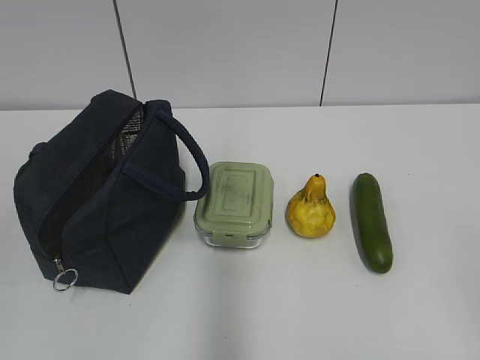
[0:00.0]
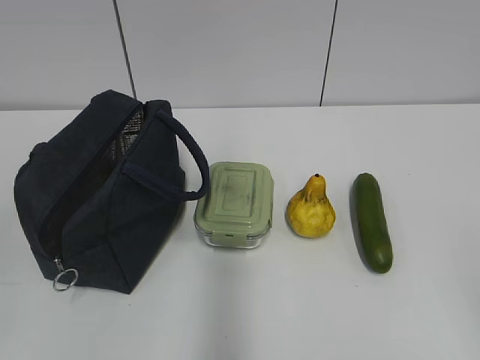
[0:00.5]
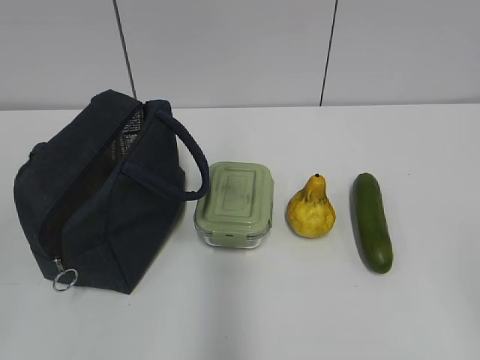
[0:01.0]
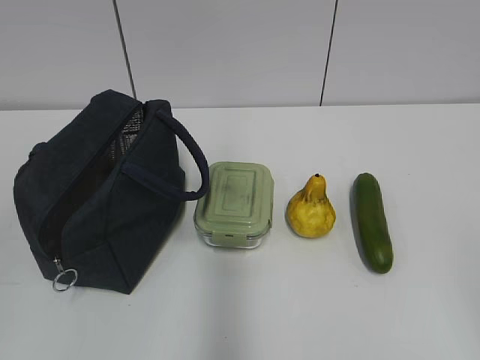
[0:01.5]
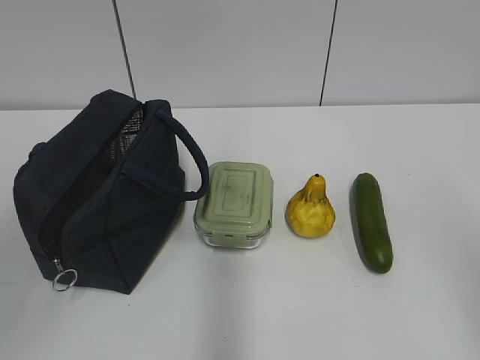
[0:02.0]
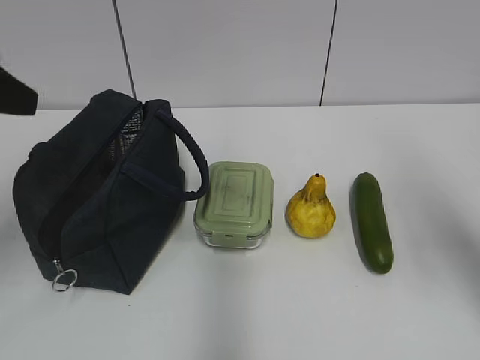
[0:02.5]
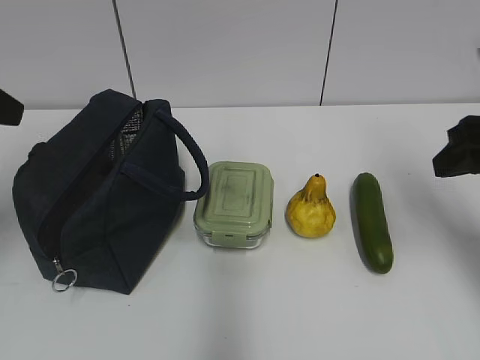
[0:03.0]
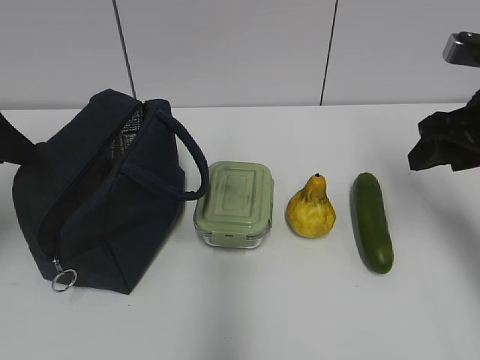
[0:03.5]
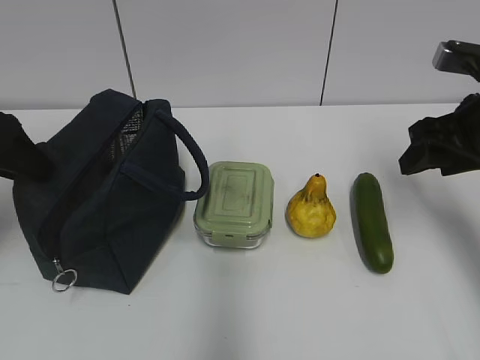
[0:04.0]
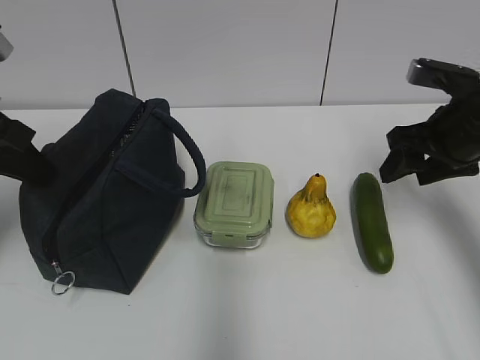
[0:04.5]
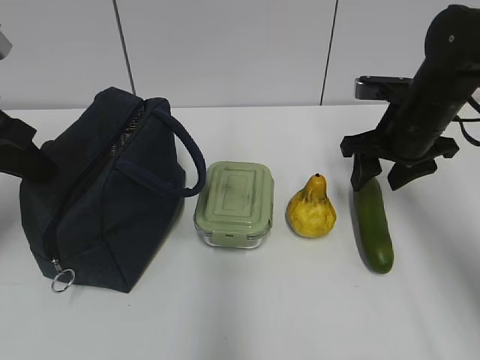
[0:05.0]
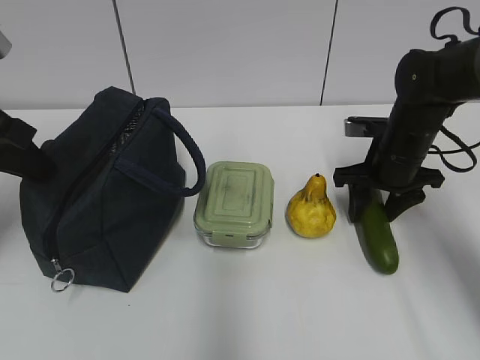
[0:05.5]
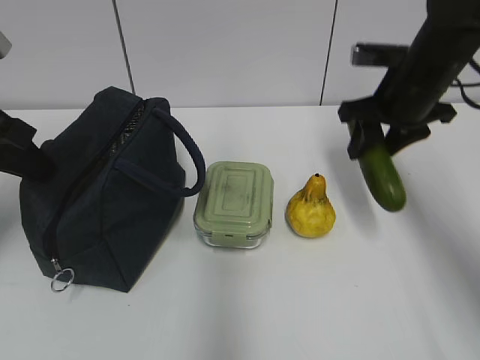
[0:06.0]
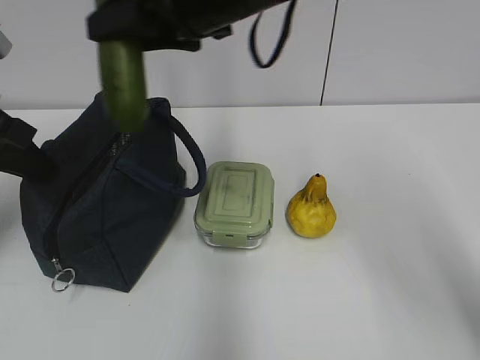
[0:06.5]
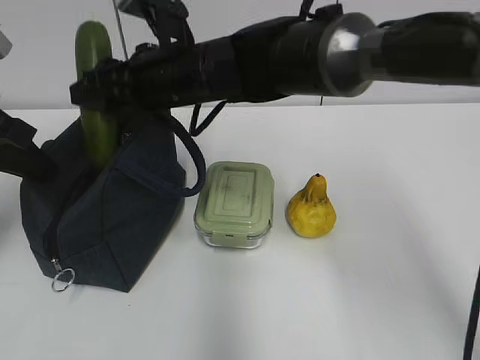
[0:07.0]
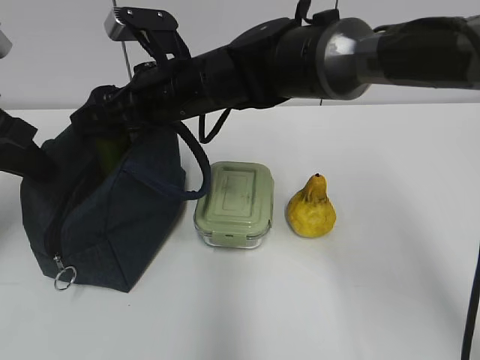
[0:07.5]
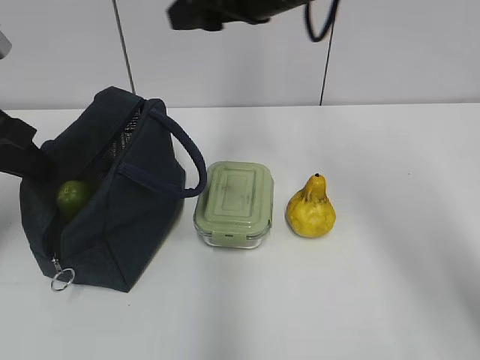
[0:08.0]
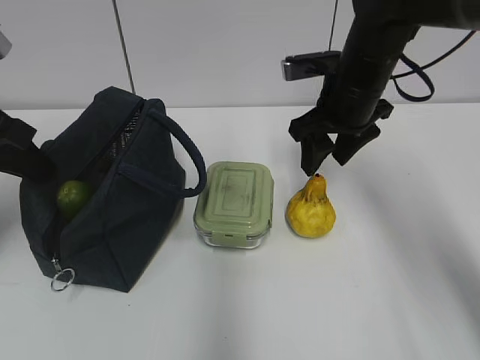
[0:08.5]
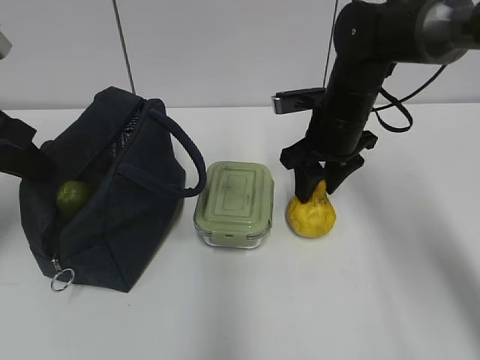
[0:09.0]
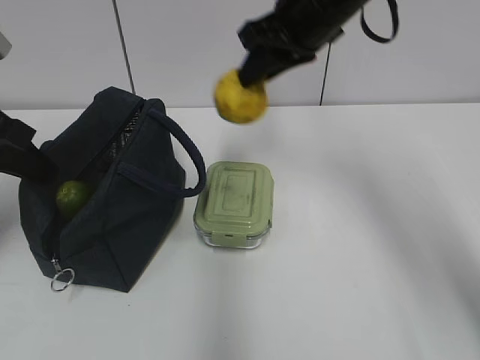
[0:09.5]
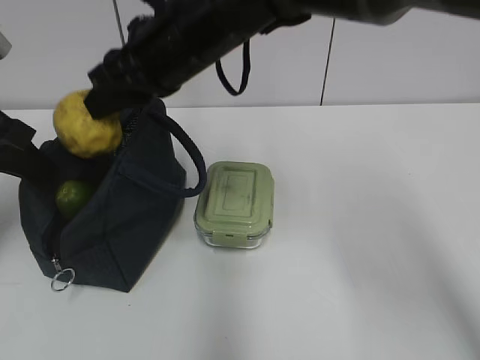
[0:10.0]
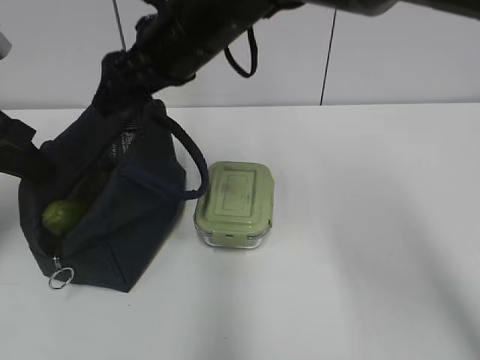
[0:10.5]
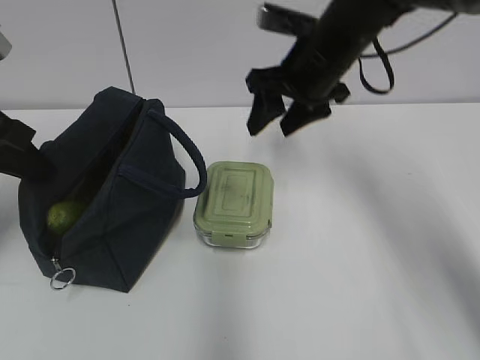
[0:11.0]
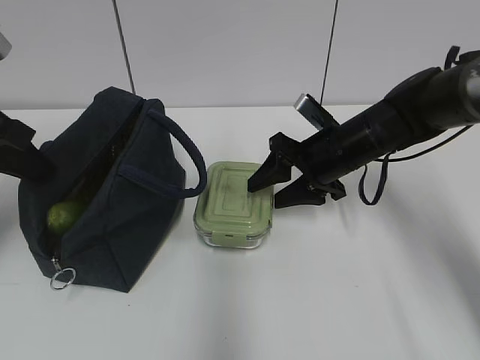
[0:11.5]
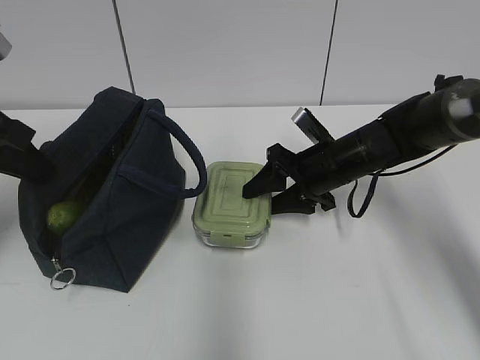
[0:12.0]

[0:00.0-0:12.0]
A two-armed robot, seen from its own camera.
Step, 0:00.0 to 0:05.5: Grab the cucumber with your right hand.
Step, 0:07.0 to 0:07.5: Place it into the bag with your right hand.
Step, 0:08.0 to 0:09.0: Grab the pear with your right hand.
Step, 0:09.5 to 0:10.0: Place it into the bag with your right hand.
0:02.0 to 0:04.0: Both grippers travel together forward, some 20 cm.
0:04.0 to 0:06.0: The right gripper shifts roughly 10 cm forward and to the left, and travels downward and back again, approximately 10 cm each way; the left gripper closes up.
0:06.0 to 0:08.0: The right gripper heads to the left and upward, covering approximately 15 cm.
0:08.0 to 0:10.0: The right gripper heads to the left, covering about 10 cm, and closes up.
0:10.0 to 0:12.0: The right gripper moves to the right and downward, about 25 cm, and opens its fingers.

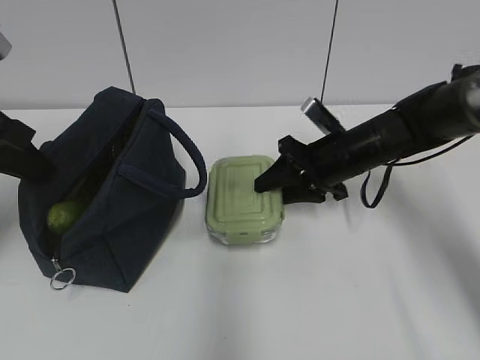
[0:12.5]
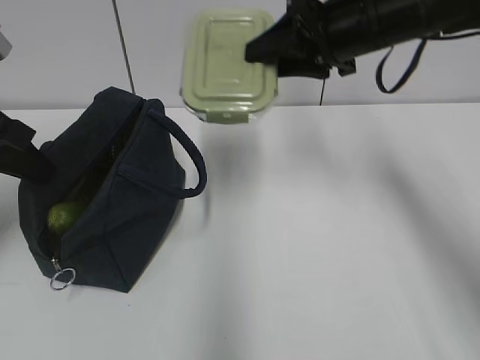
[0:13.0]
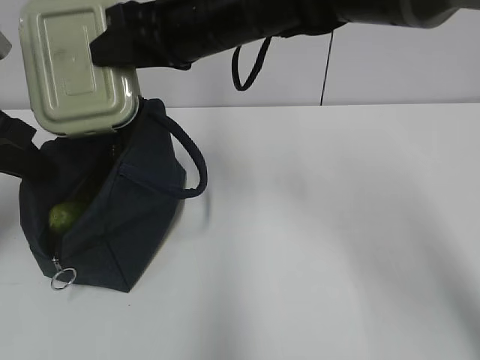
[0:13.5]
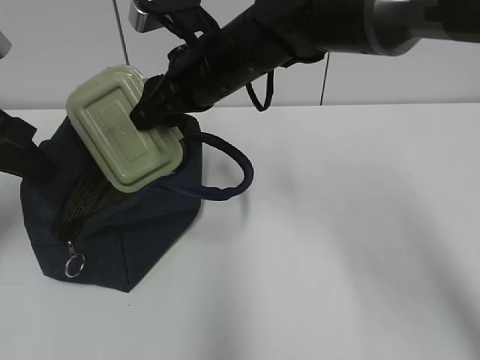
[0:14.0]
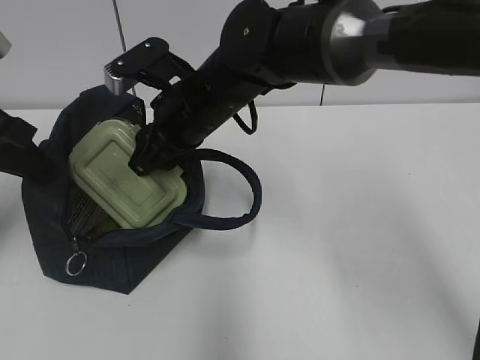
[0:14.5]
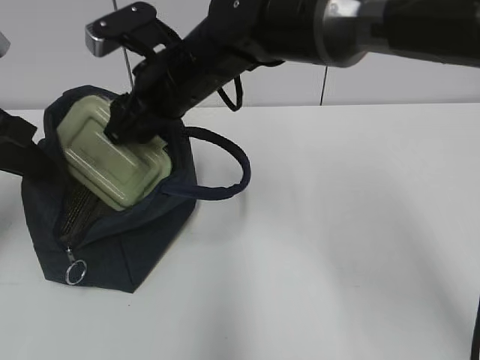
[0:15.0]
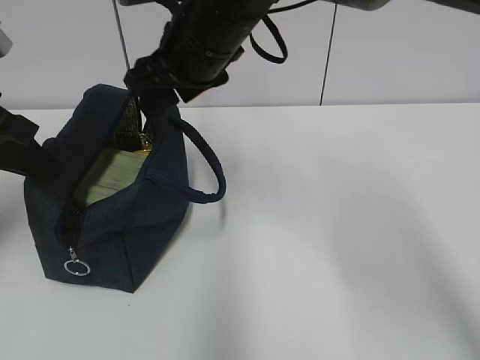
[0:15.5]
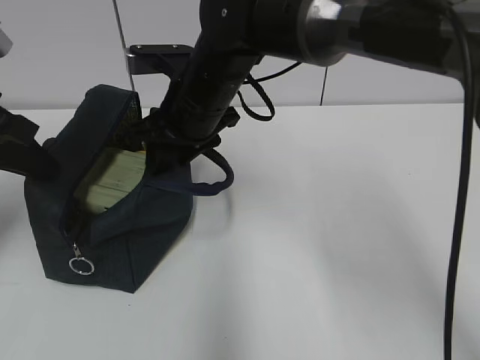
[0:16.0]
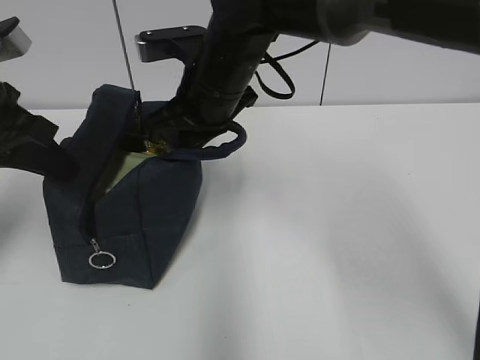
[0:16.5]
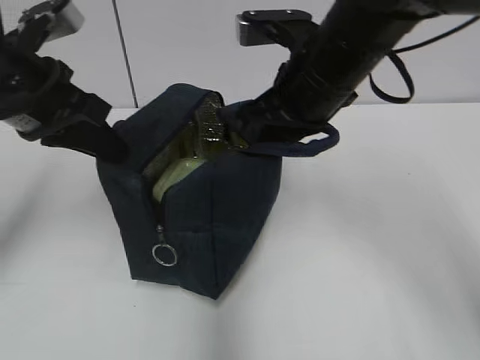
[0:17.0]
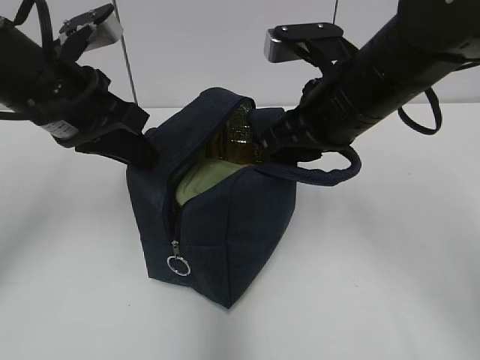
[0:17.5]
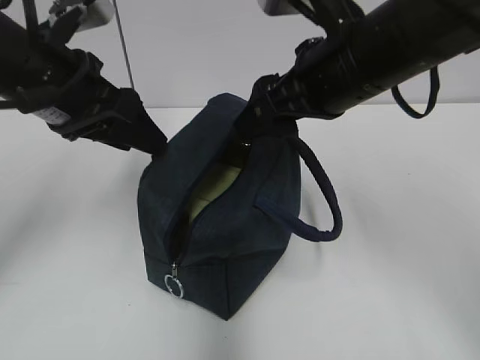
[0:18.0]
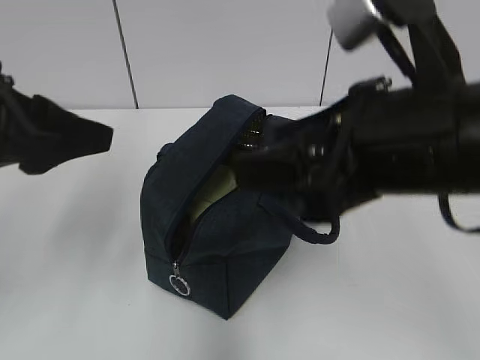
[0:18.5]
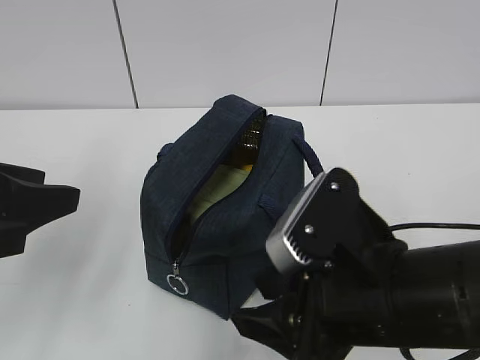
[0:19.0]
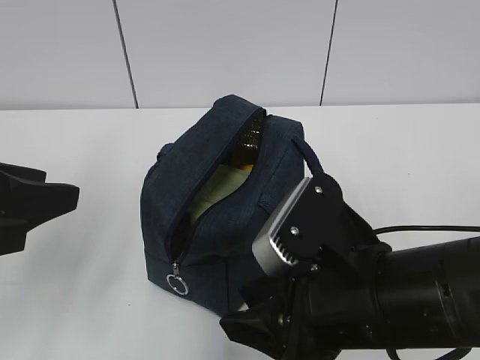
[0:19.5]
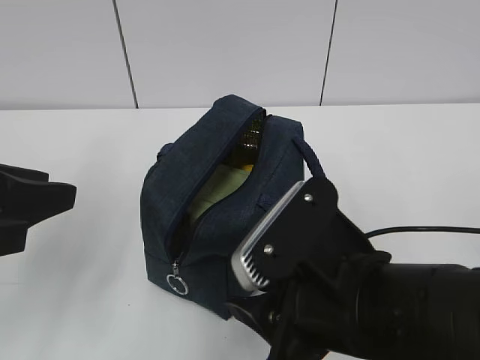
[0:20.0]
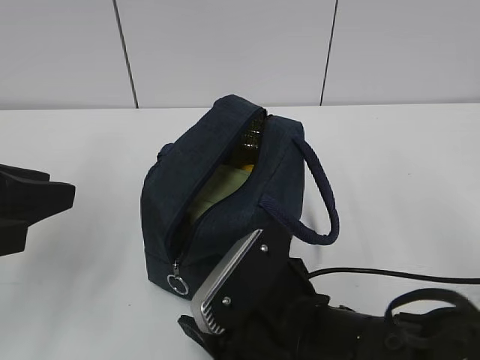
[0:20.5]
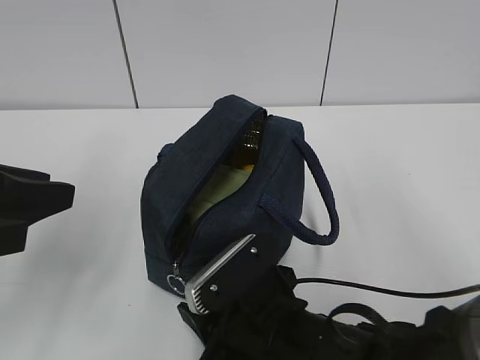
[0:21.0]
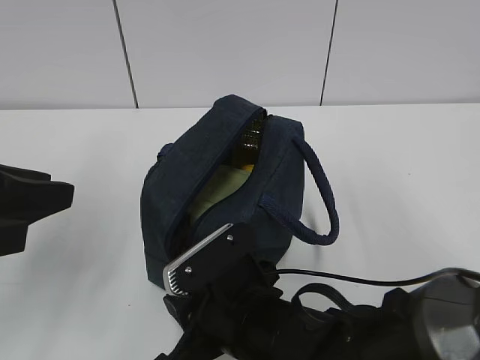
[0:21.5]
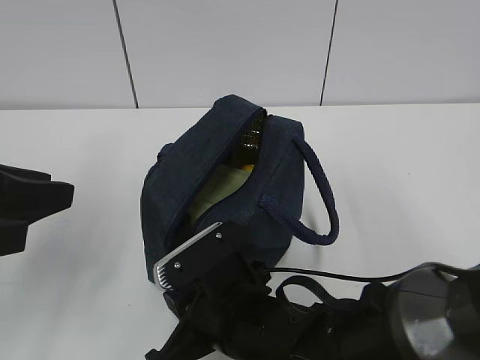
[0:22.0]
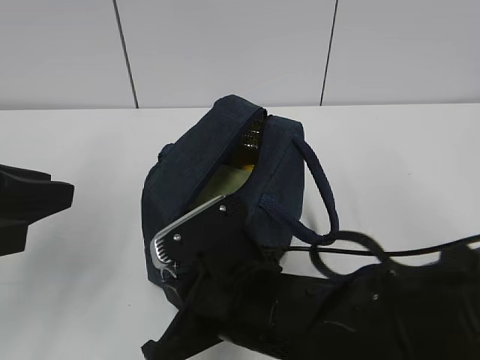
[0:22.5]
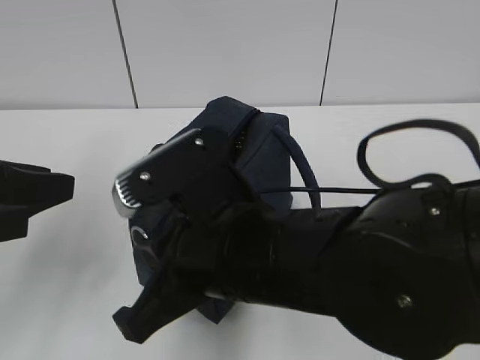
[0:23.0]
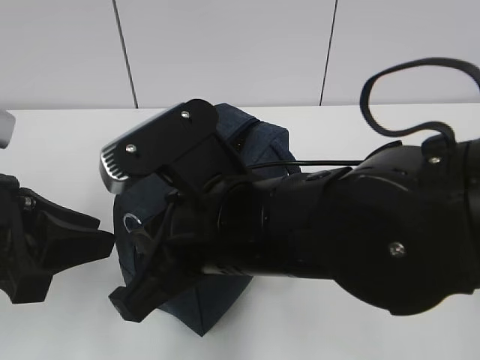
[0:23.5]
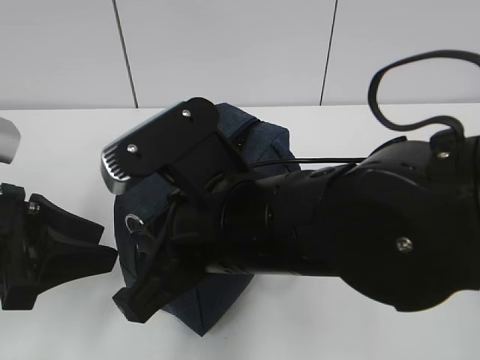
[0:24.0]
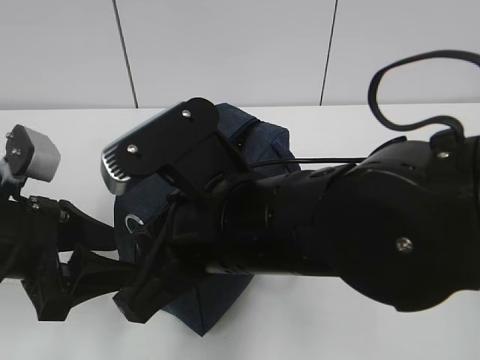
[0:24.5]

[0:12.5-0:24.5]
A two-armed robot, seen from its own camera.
Step, 0:15.5 to 0:16.0: Grab the lunch bag with your right hand.
Step, 0:16.5 to 0:17.5: Move the lunch bag to the right.
0:12.5 to 0:14.5: The right gripper is displaced to the left and upward by roughly 20 cm.
0:14.5 to 0:16.5: The right gripper closes.
0:16.5 to 0:18.5: The right gripper travels backward and to the right by approximately 25 cm, and opens its fingers. Meanwhile the left gripper shifts some 10 cm backward, and opens its fingers.
0:18.5 to 0:20.5: The right gripper is displaced downward and to the left by about 15 cm, and closes its fingers.
0:20.5 to 0:22.5: The right gripper closes its fingers.
0:22.5 to 0:24.5: The left gripper travels downward by roughly 10 cm, and opens. Meanwhile the right gripper moves upward, about 10 cm.

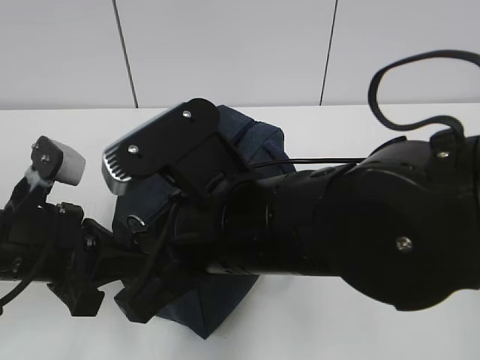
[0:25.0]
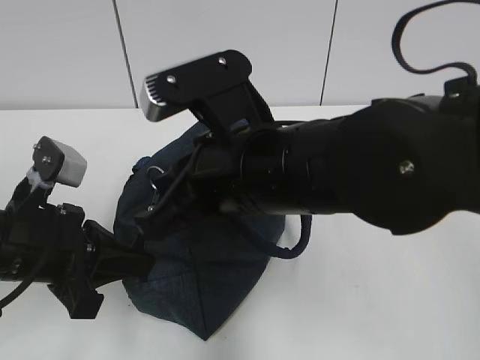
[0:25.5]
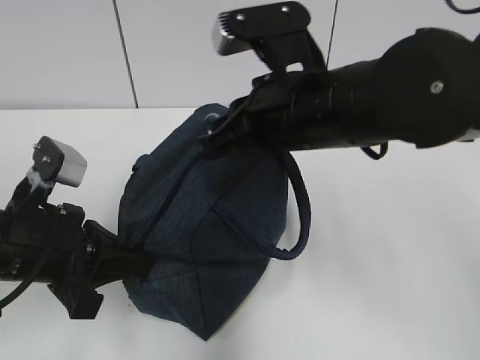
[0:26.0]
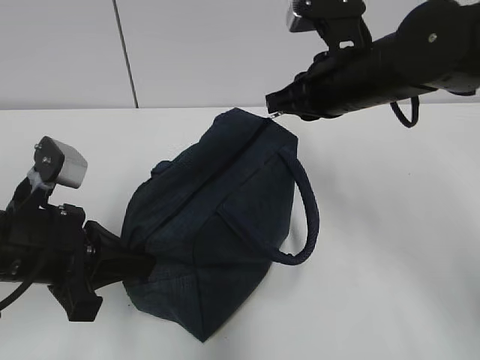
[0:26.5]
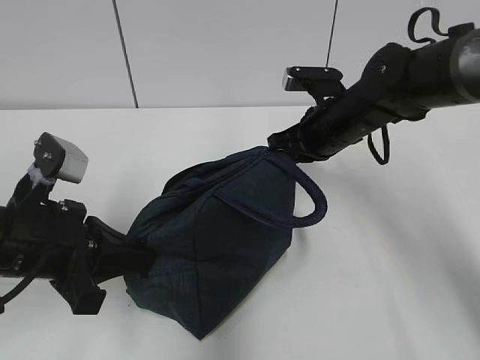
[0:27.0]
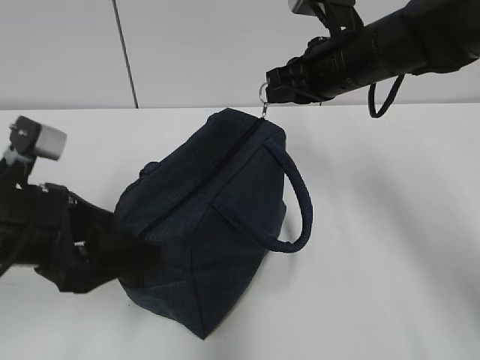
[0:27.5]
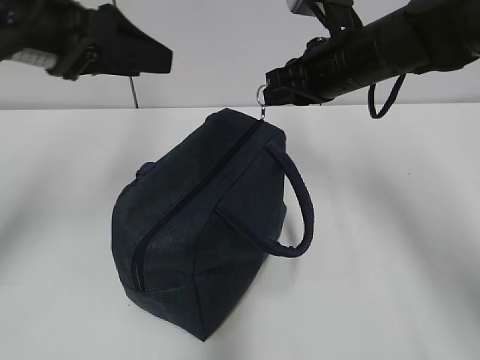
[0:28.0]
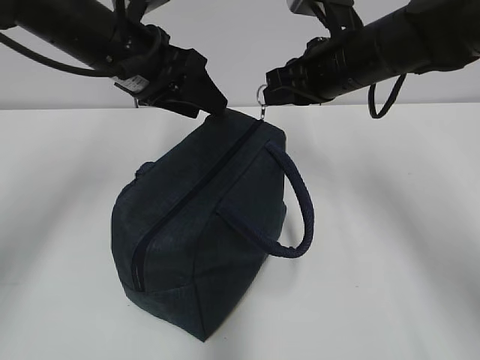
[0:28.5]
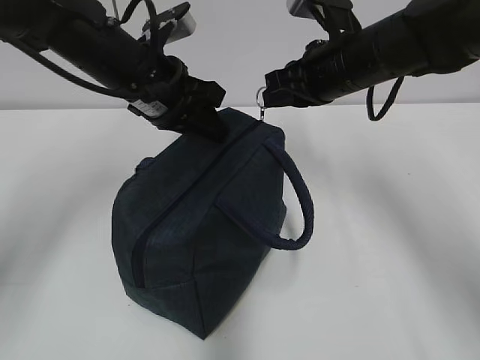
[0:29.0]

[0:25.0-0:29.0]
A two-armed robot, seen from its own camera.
0:25.0 to 0:27.0: The right gripper shifts some 25 cm forward and to the right.
0:27.0 to 0:29.0: The right gripper moves upward, roughly 10 cm; the left gripper is displaced forward, upward and to the right by some 20 cm, and opens, then closes once more.
